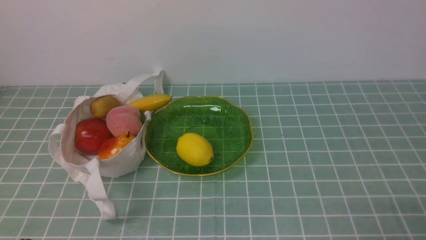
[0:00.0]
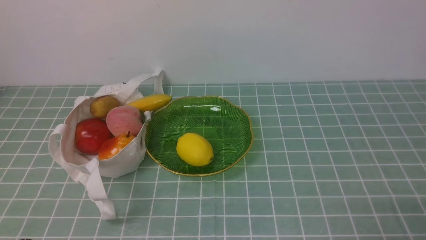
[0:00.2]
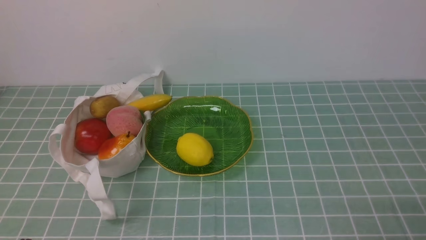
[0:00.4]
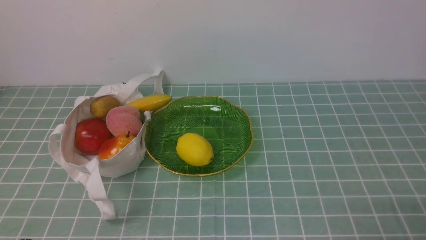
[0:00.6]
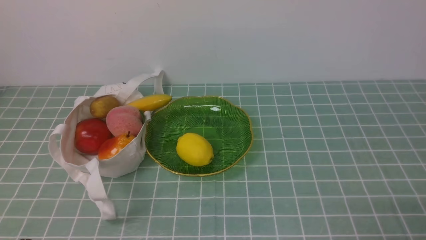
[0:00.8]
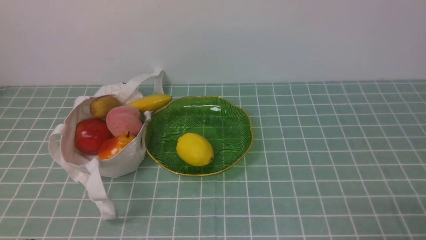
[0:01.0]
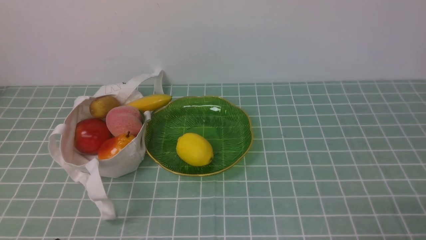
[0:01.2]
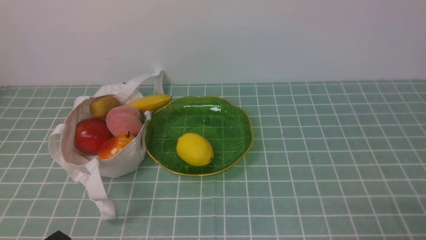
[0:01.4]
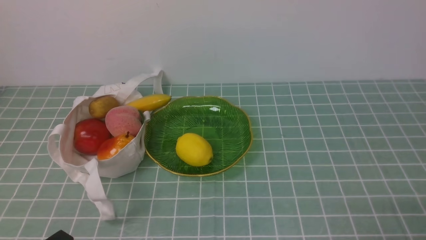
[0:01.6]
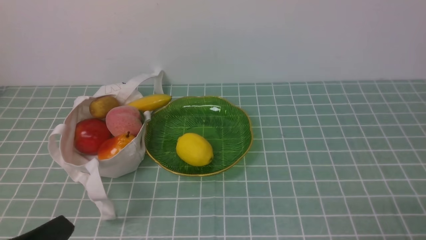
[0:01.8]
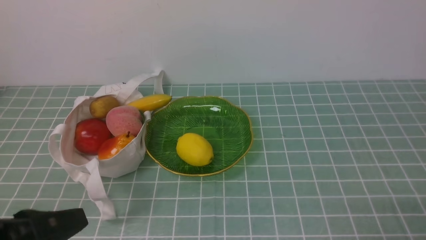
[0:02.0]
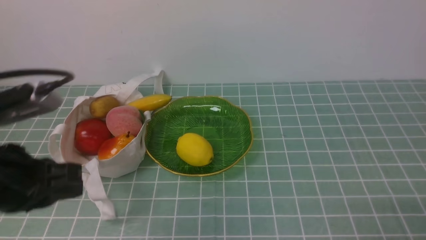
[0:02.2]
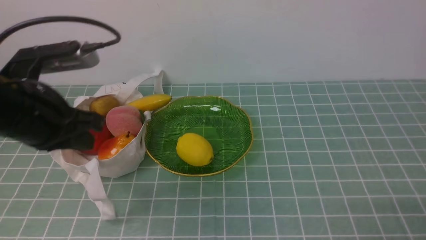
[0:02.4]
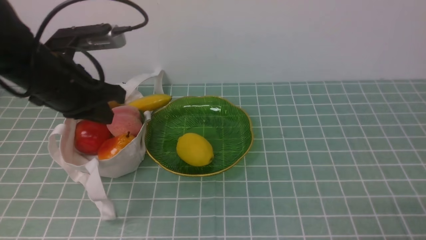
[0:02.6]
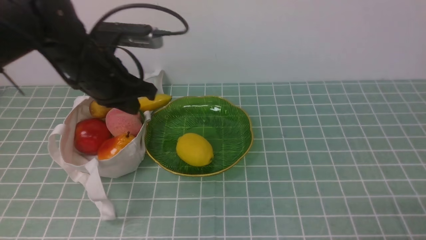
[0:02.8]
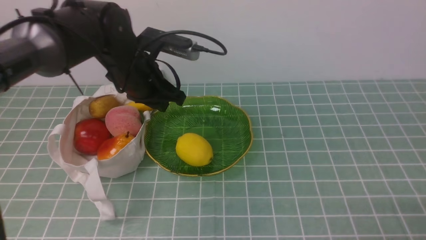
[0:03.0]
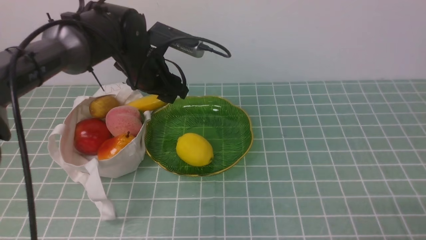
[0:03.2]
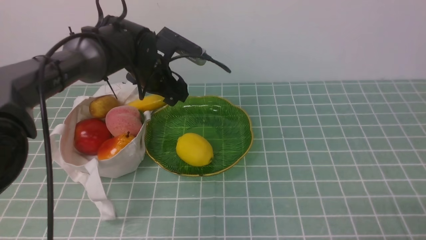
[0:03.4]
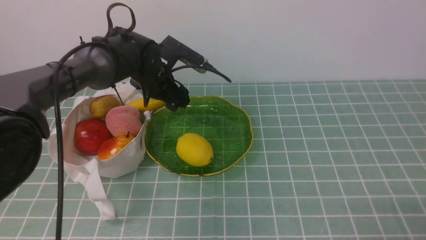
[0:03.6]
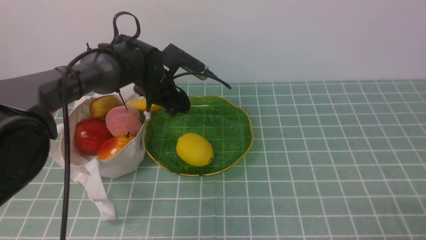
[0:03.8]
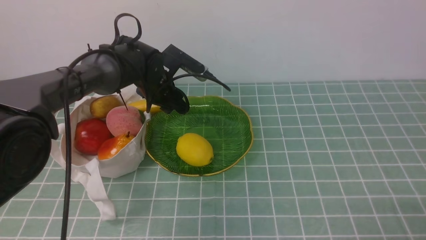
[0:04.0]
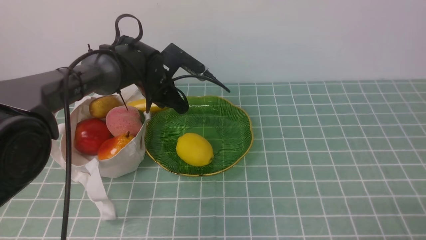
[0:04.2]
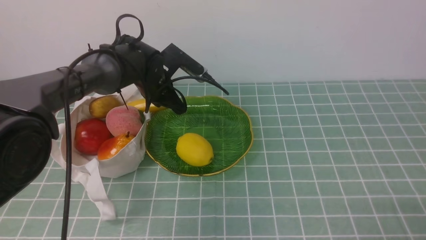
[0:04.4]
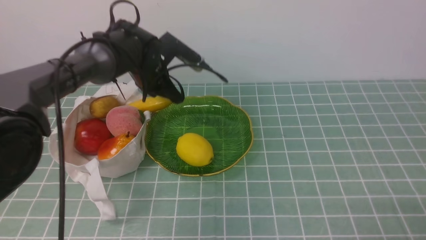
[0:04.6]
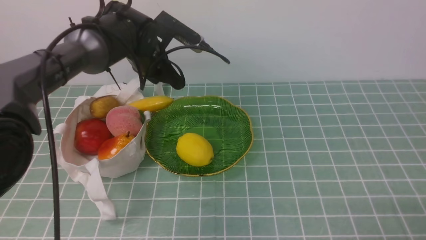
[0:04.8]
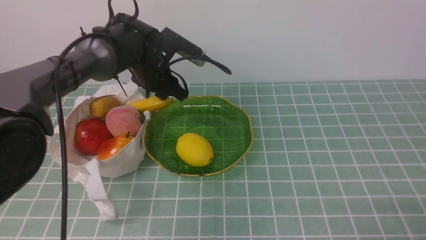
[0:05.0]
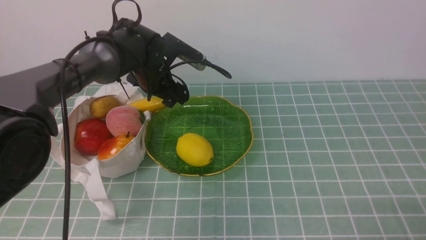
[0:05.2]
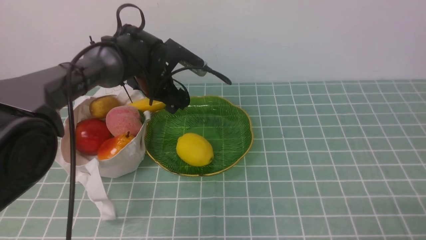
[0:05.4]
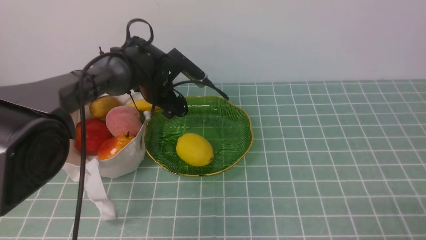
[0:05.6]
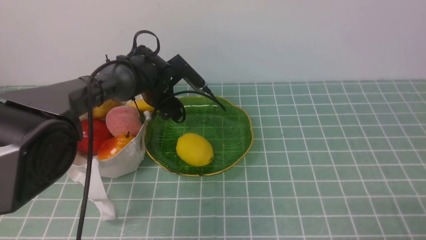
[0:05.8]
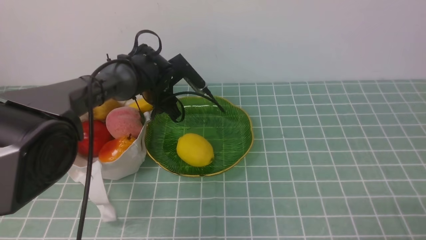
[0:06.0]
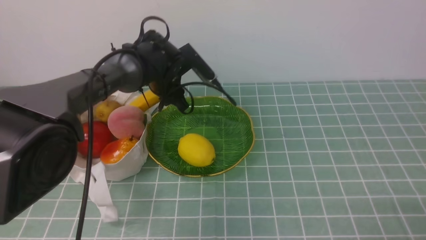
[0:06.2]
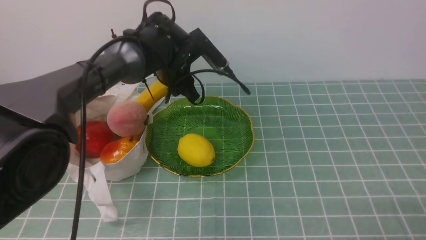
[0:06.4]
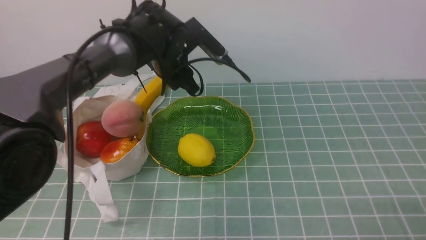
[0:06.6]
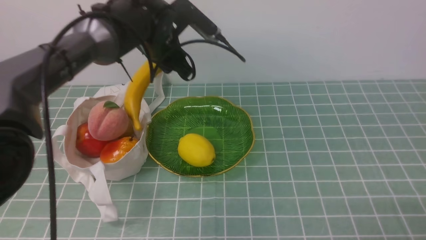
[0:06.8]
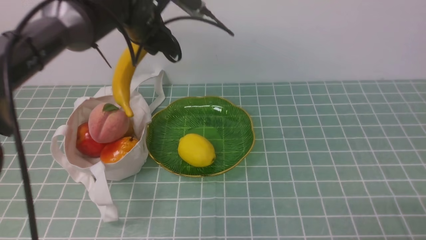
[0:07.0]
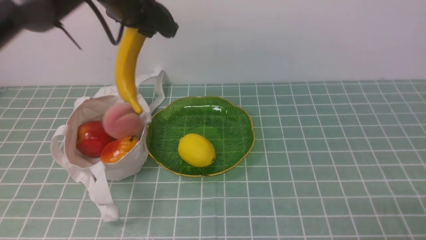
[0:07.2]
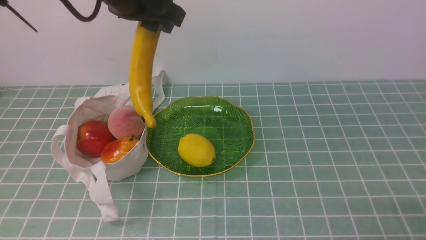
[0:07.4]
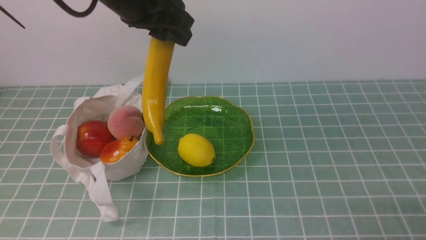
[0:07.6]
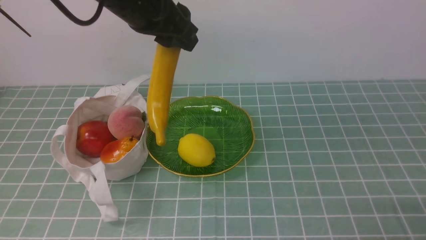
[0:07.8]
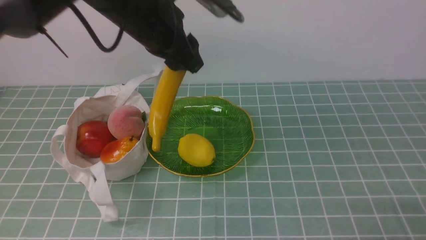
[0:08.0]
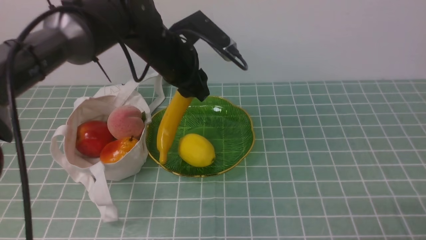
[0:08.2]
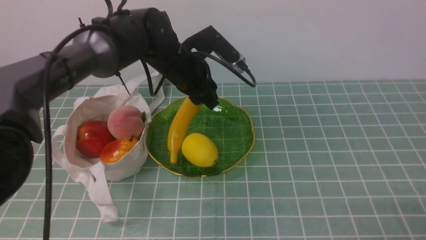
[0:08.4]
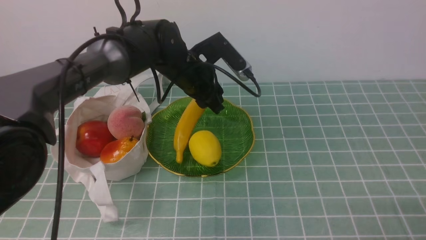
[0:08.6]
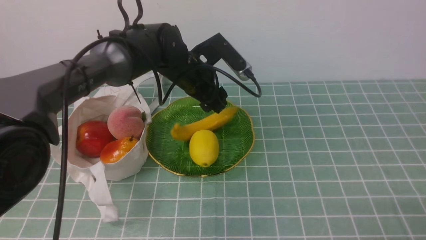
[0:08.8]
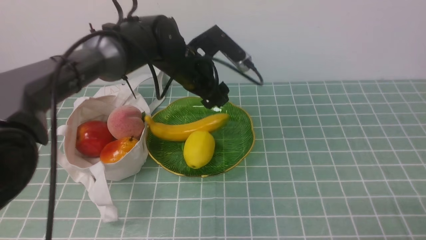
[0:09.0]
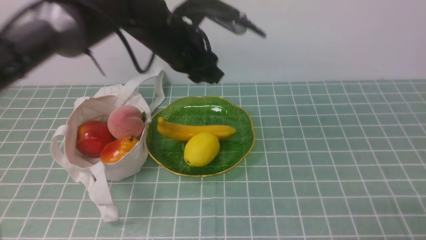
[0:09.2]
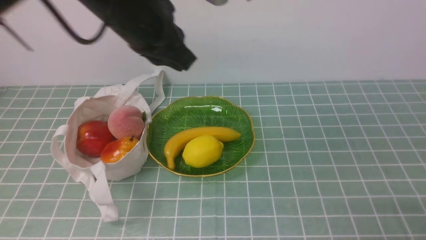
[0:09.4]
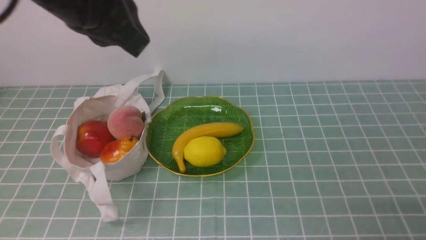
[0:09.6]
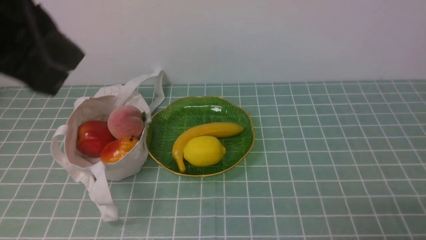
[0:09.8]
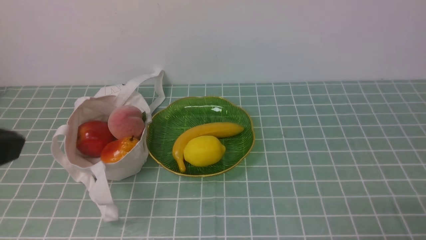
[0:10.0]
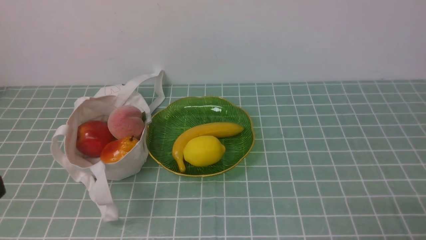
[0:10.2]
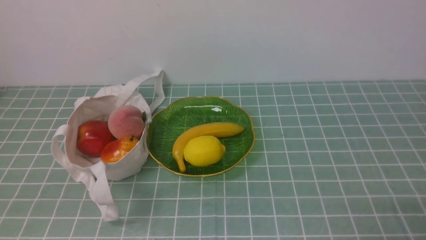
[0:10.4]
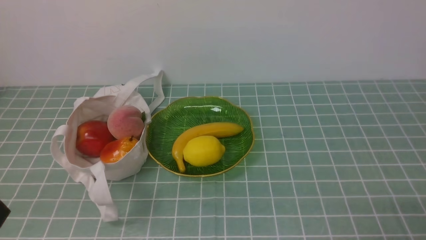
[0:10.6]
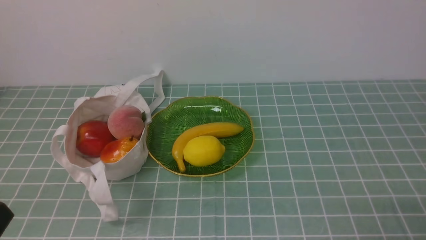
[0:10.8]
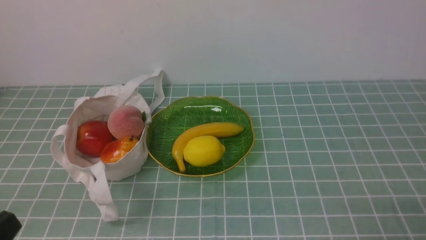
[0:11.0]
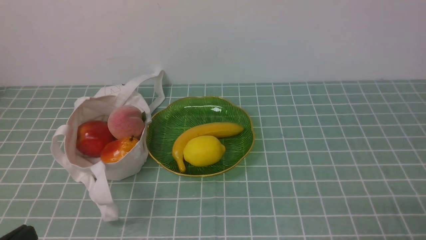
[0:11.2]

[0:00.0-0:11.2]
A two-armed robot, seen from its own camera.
Step, 0:00.0 to 0:06.4: use the left arm to grab a banana from the bag.
Step, 0:06.6 to 0:09.0: use the left arm to put the banana into the empty plate on the right.
0:01.6 to 0:03.2: The left gripper shifts about 40 cm forward, and opens its fingers.
0:03.2 to 0:04.8: The left gripper closes up.
0:04.8 to 0:06.4: The left gripper opens, then closes again.
0:06.4 to 0:08.0: The left gripper is displaced upward and backward by roughly 15 cm.
0:08.0 to 0:09.6: The left gripper heads backward and upward, covering approximately 20 cm, and closes up.
0:09.6 to 0:11.2: The left gripper heads downward, backward and to the left, covering roughly 30 cm.

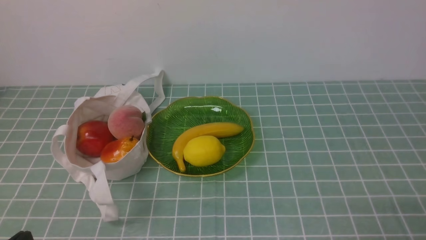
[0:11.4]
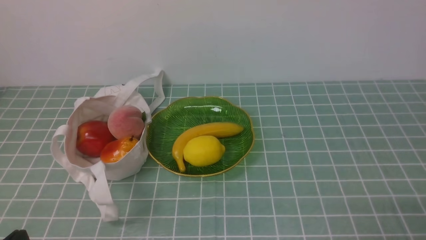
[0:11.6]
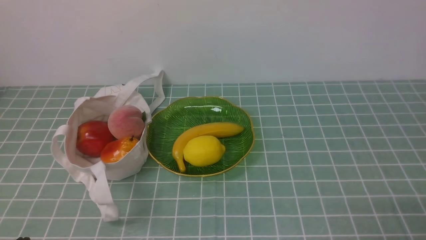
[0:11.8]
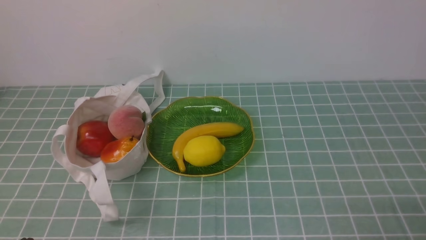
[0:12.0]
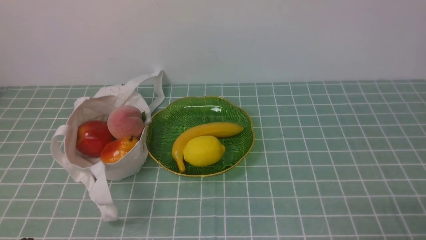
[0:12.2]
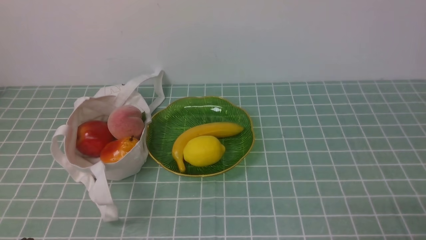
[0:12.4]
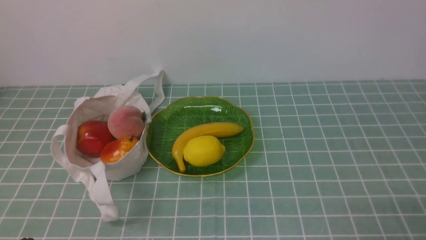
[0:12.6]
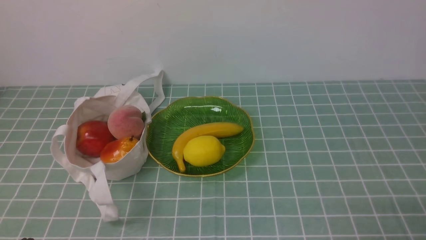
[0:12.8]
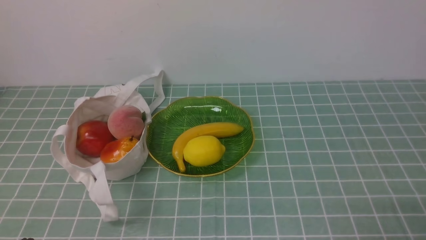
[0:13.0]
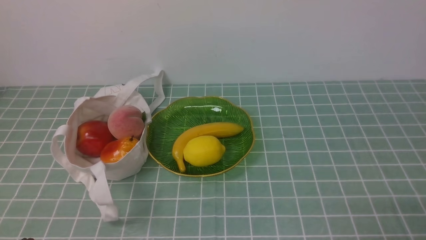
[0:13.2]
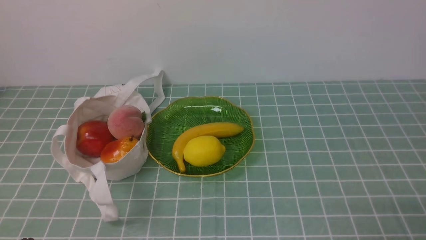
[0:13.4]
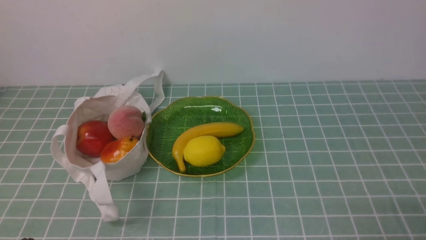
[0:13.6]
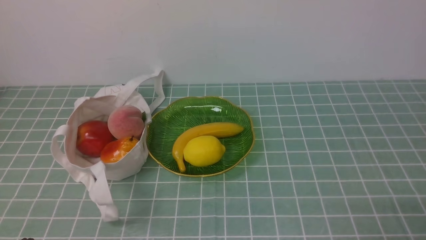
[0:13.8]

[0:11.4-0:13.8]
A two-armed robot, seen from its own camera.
0:12.6 to 0:13.8: Both grippers stay about where they are.
